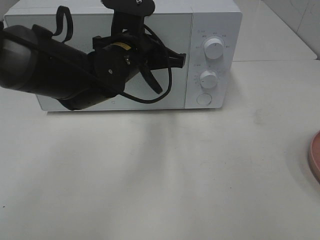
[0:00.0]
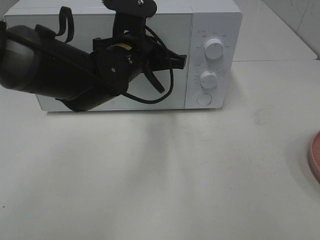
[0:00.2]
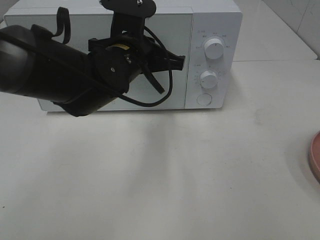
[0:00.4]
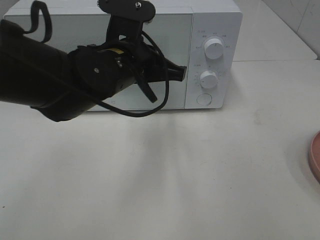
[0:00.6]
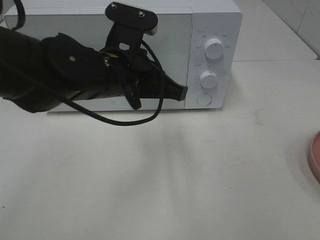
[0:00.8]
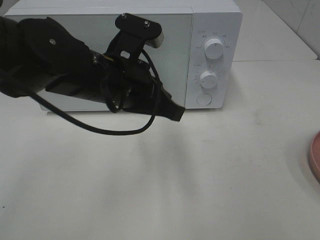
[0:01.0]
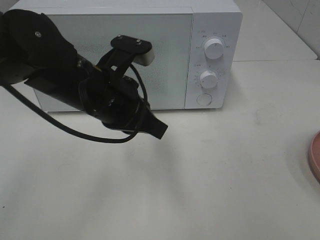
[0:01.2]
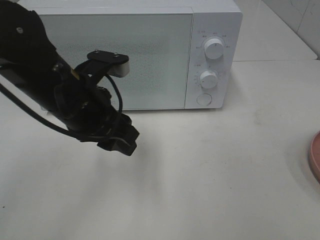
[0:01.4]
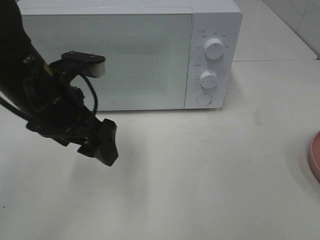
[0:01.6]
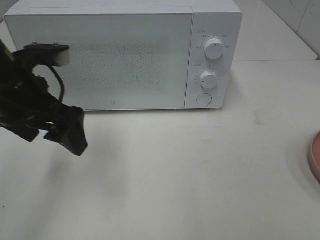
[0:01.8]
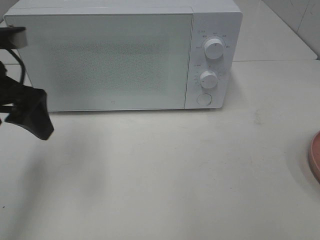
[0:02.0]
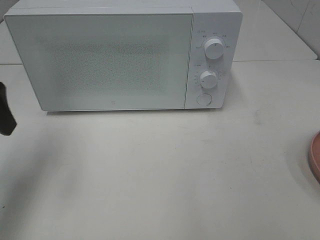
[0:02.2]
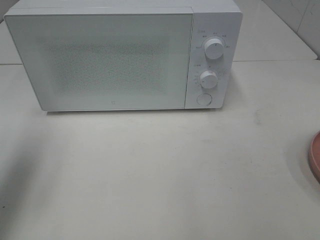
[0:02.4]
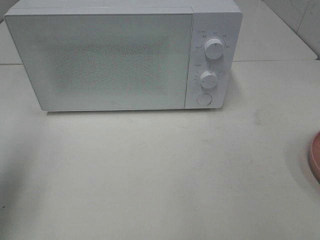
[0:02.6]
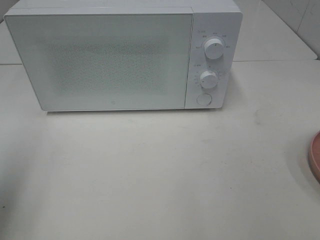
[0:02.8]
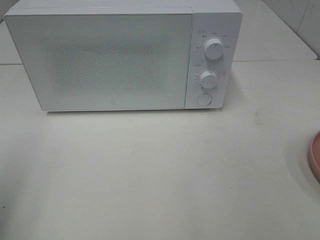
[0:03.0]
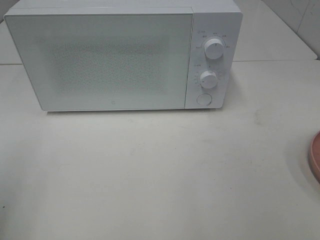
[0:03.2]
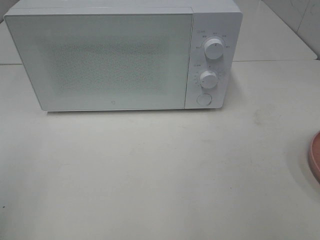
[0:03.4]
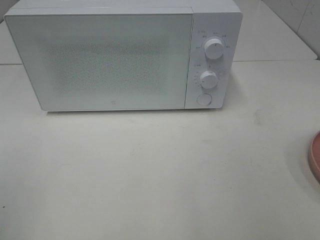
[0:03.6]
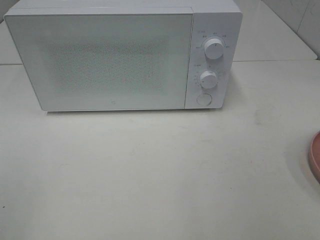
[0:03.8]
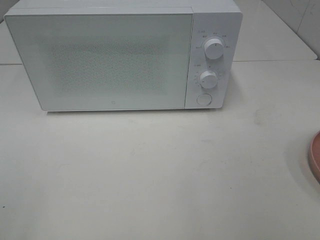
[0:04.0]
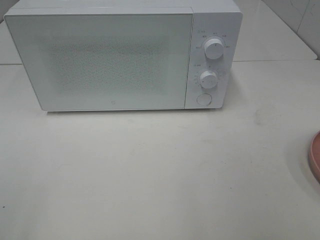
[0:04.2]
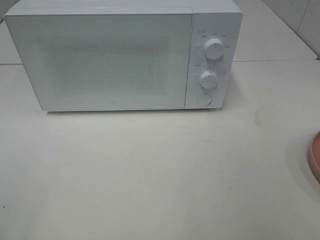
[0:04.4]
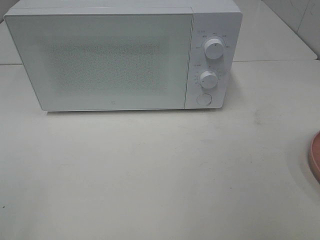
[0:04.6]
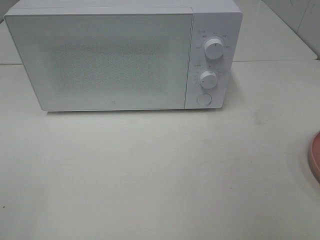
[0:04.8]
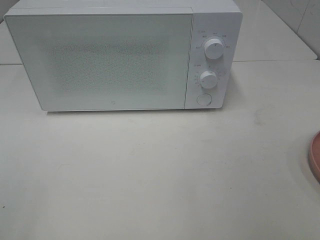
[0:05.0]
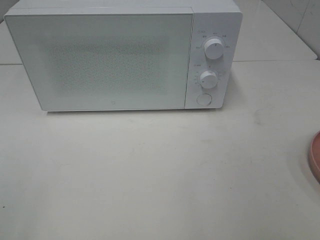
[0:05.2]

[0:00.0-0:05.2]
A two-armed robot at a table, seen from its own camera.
Task of the whole recording: Heat the burger.
0:00.0 to 0:01.8: The left gripper travels to the left and backward by approximately 15 cm, and opens its fingers.
0:01.8 to 0:03.4: The left gripper travels backward and to the left by roughly 25 cm.

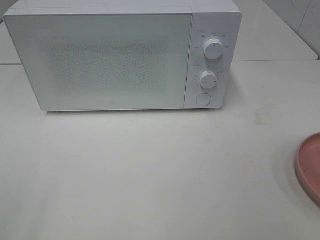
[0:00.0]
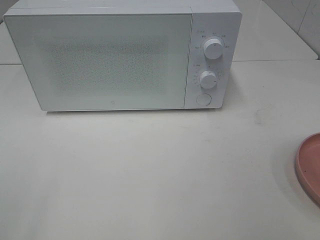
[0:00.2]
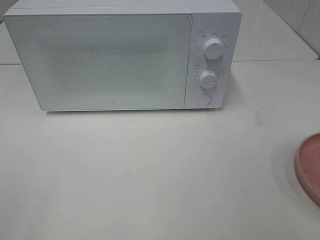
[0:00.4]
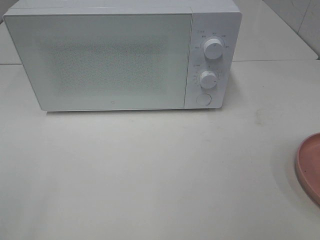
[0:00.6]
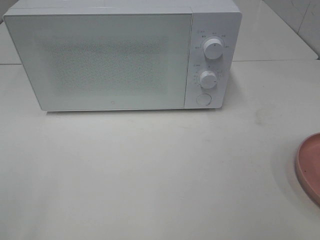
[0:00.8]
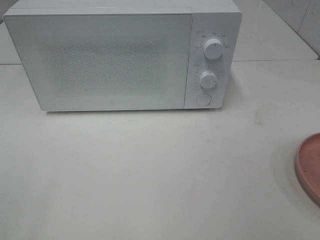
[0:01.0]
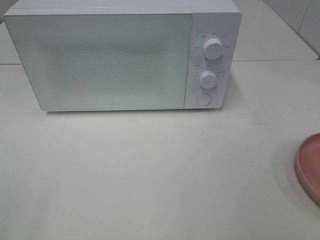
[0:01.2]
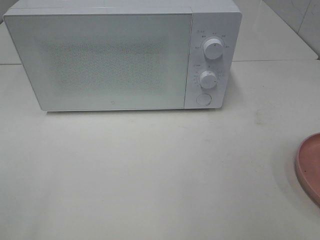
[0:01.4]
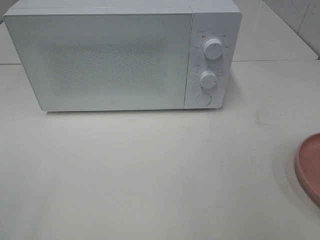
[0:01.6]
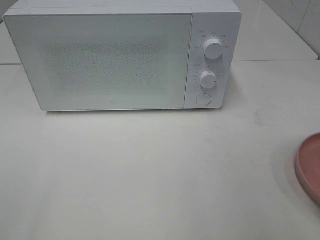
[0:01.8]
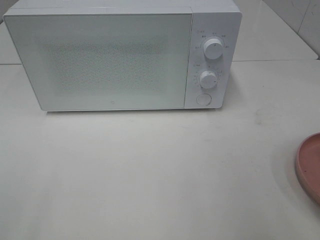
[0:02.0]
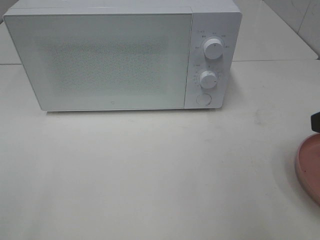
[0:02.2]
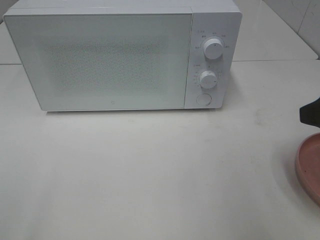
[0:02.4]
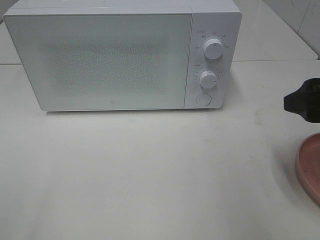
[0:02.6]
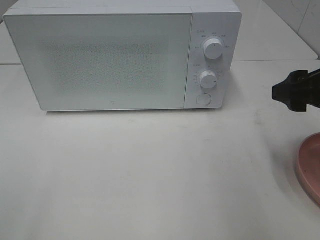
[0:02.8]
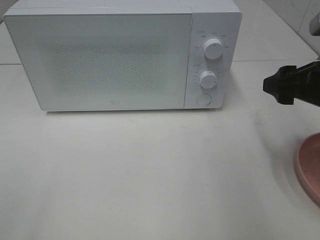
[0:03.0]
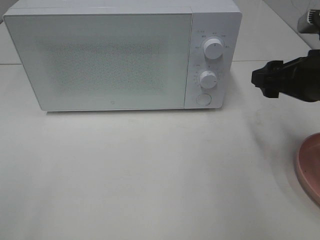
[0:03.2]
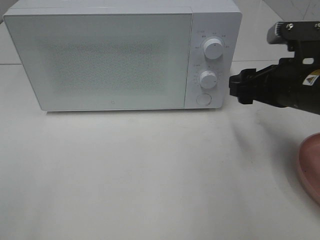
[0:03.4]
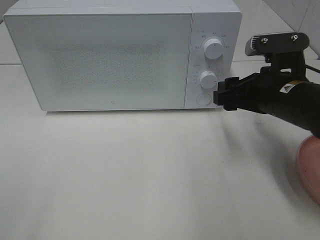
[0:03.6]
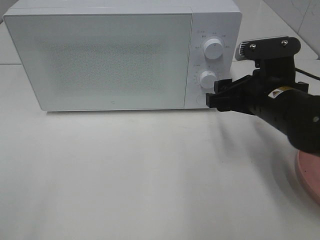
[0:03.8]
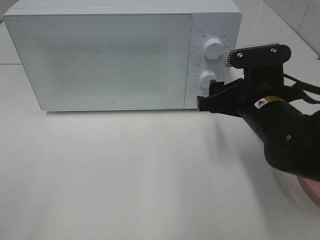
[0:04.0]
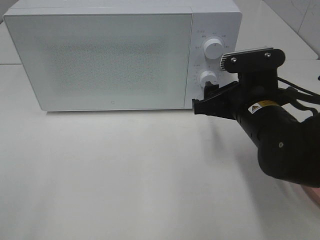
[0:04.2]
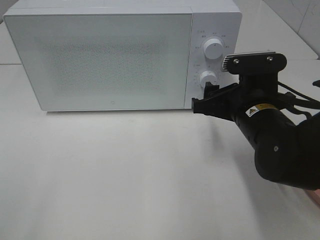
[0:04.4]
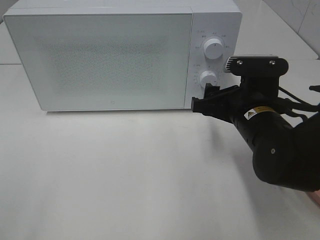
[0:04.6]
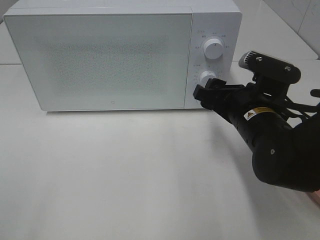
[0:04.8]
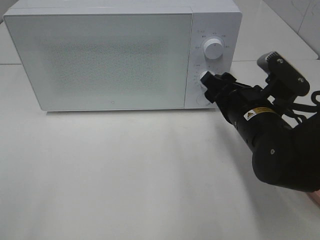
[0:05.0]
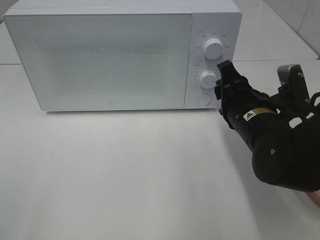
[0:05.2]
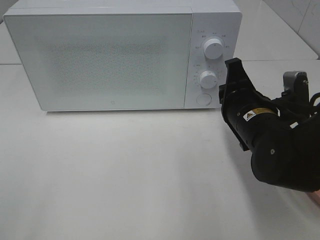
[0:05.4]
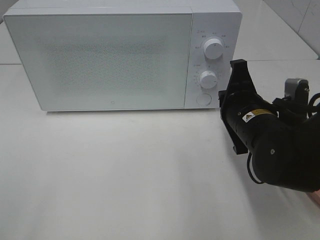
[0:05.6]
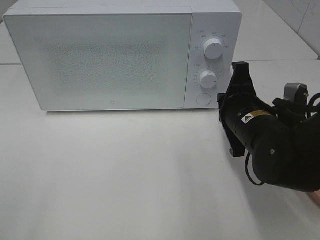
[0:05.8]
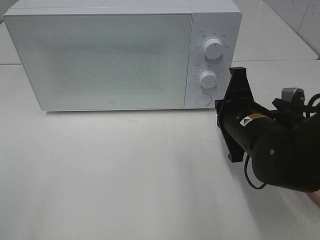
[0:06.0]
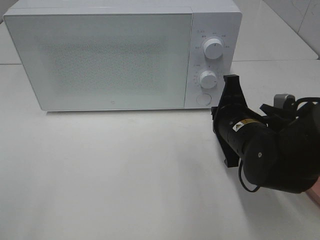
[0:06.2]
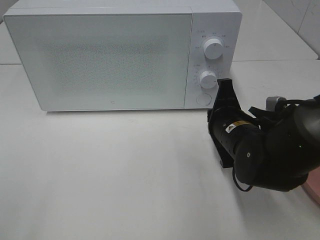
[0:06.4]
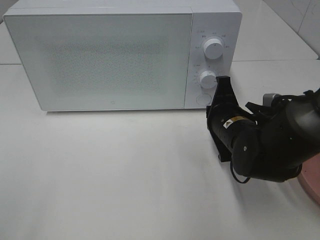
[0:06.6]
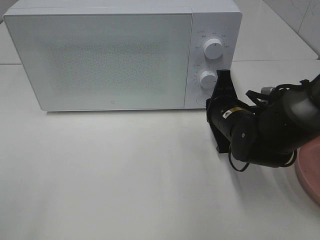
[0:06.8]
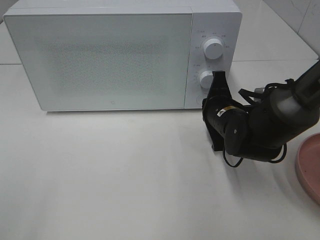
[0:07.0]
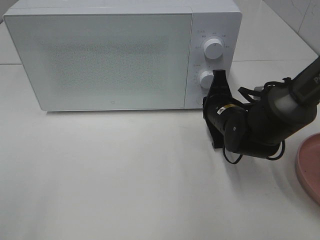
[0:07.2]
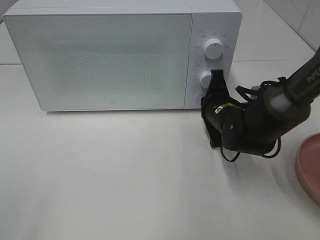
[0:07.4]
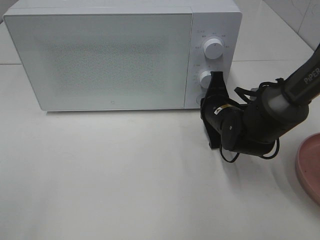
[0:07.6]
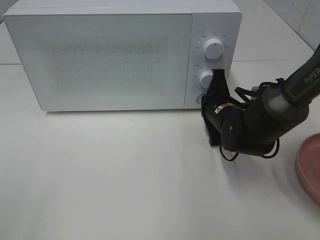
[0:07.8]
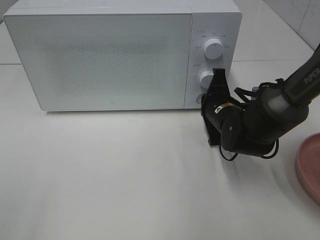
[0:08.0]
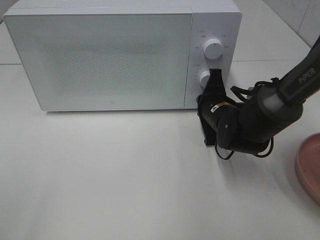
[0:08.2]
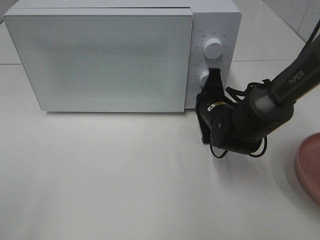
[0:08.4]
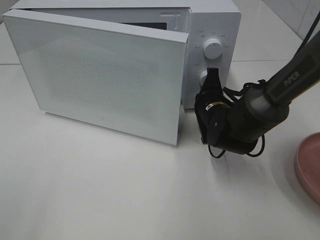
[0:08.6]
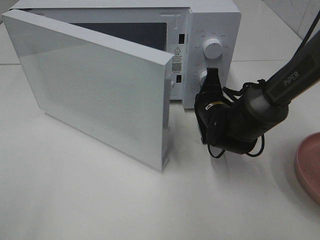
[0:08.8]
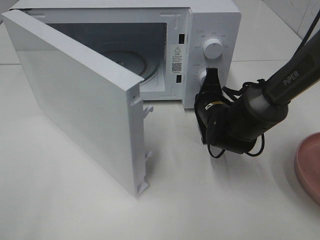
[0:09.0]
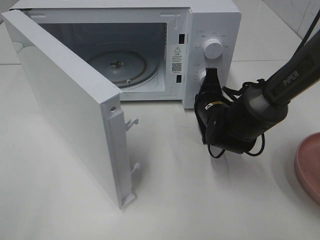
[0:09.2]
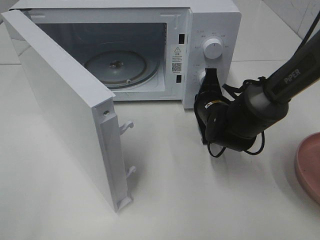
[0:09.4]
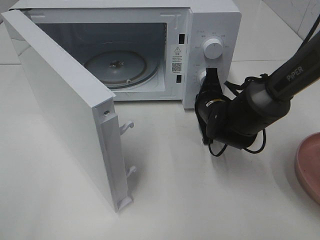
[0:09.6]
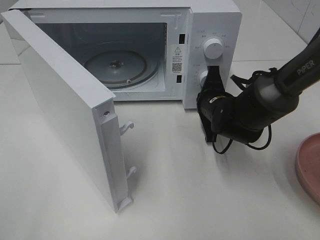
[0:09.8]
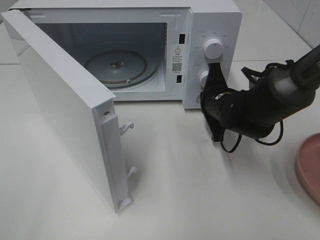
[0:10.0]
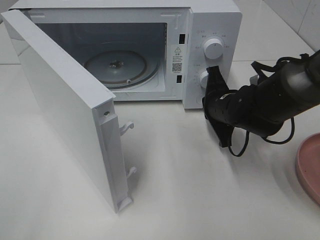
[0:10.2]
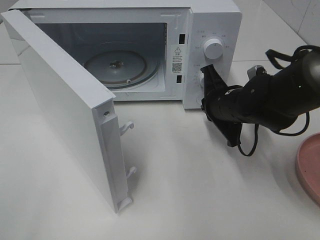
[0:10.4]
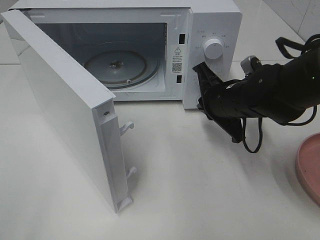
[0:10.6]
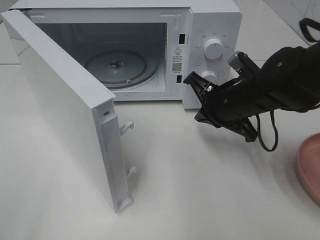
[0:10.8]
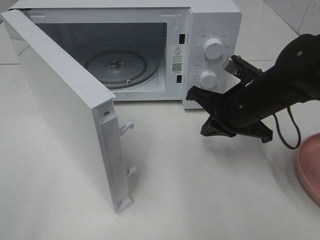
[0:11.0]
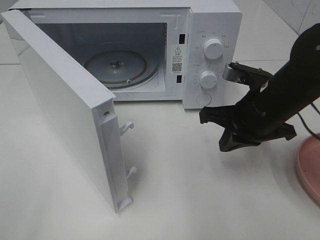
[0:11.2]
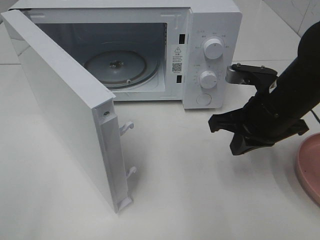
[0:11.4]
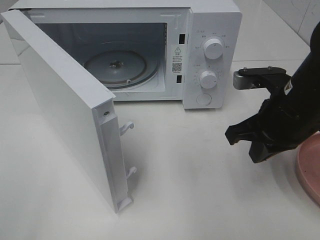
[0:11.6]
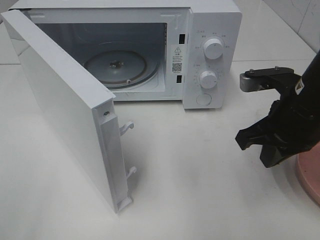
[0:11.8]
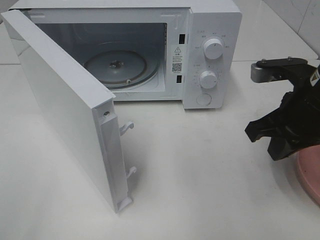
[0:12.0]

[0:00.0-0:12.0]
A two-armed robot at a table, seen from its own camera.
Task of the whole recording: Heat the burger.
Step, 0:00.0 to 0:10.2: Right hand: press the switch.
0:01.6 to 0:03.0: The right gripper travels forward by some 15 cm.
0:03.0 to 0:04.4: The right gripper moves to the left and downward, approximately 10 cm.
0:04.4 to 0:06.0: The right gripper closes its fingers.
0:06.0 to 0:07.6: The right gripper moves forward and downward, roughly 10 cm.
0:09.0 to 0:10.4: The right gripper changes place by about 5 cm.
0:10.4 to 0:12.0: The right gripper is displaced upward, backward and to the right by approximately 15 cm.

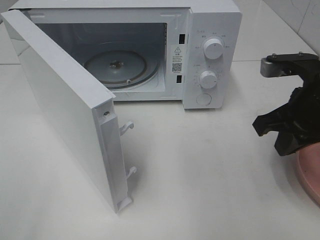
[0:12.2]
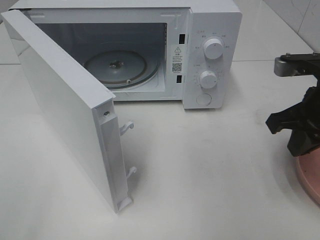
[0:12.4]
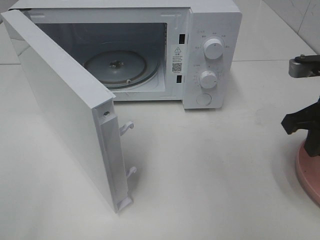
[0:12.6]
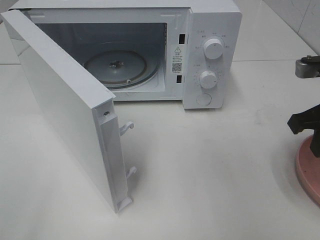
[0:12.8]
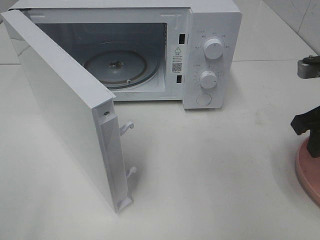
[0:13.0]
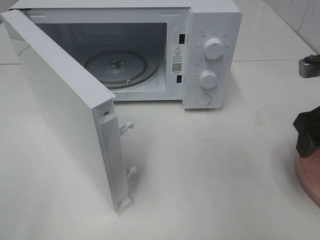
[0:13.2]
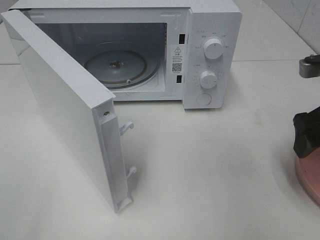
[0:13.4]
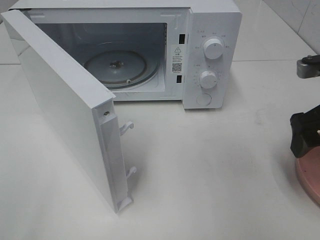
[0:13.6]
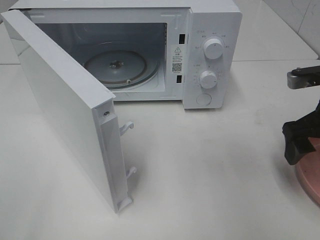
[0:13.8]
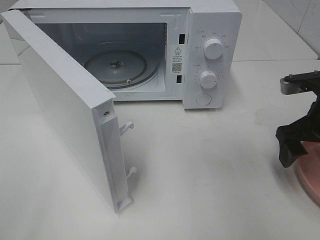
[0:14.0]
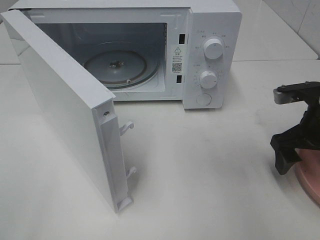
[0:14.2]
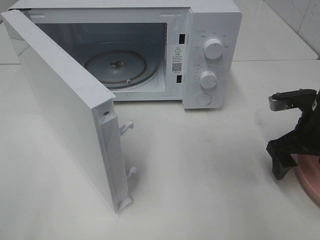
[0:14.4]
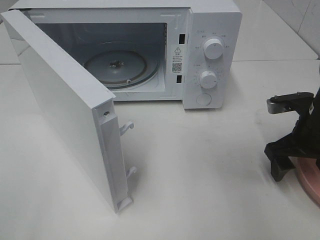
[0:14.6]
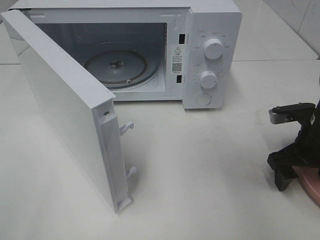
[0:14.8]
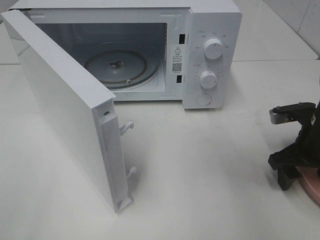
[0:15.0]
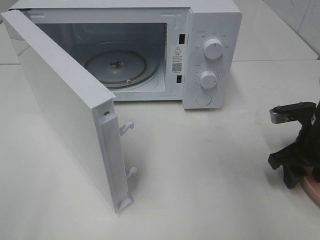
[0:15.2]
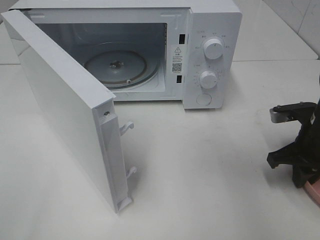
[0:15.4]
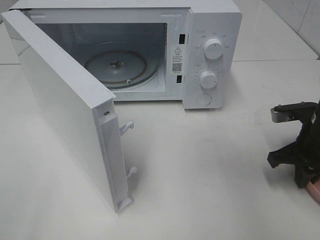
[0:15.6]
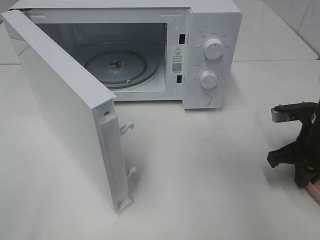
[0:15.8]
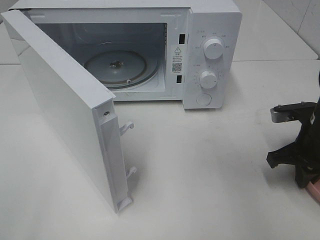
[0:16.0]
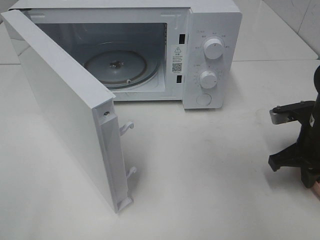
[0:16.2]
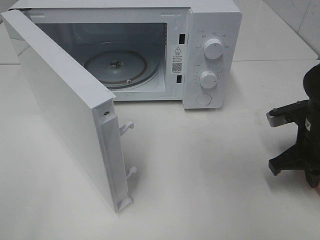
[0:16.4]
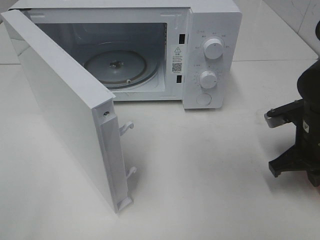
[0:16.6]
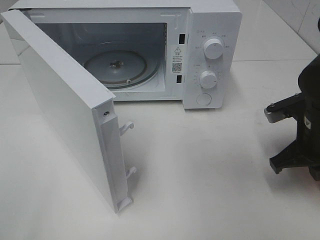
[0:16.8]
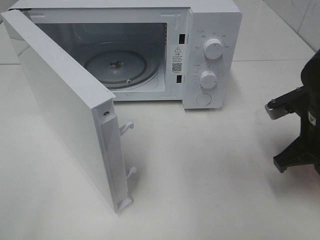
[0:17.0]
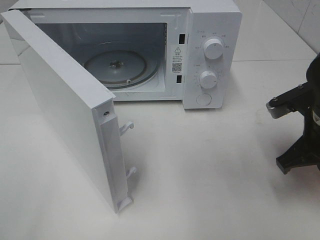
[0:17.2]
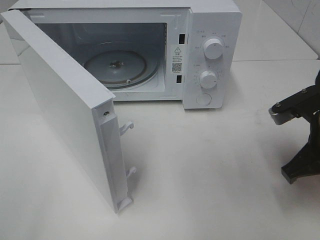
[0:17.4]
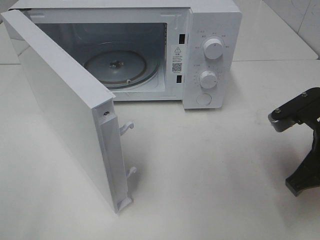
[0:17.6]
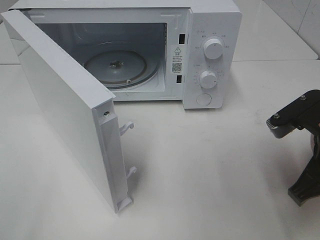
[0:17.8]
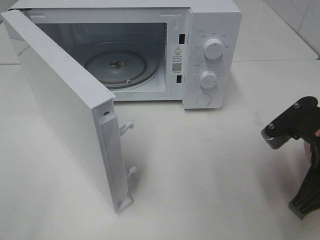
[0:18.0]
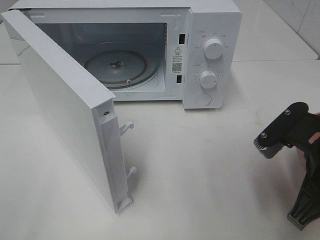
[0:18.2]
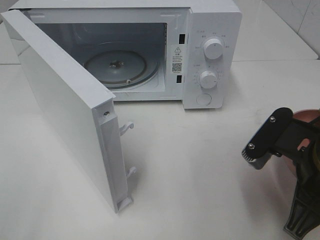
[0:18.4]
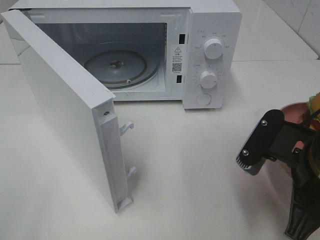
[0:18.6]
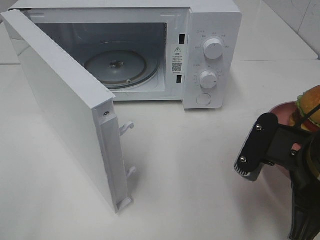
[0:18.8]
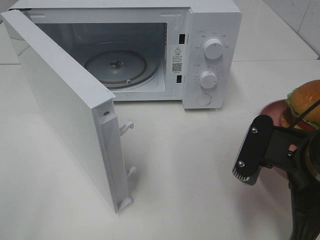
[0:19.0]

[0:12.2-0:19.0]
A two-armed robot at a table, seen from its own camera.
Task of the whole recording: Heat the burger.
Step, 0:12.2 to 0:16.2: Right hand: grab the plate with the hamburger.
0:12.2 to 0:13.6: The right gripper shifts approximately 5 cm to the right, and opens up.
0:13.6 to 0:15.0: The right gripper moves downward, some 10 cm.
0:15.0 to 0:16.2: The right gripper closes its fingers.
0:16.2 to 0:17.6: The right gripper goes roughly 10 cm backward and upward.
0:17.6 to 0:19.0: The right gripper goes approximately 5 cm to the left.
